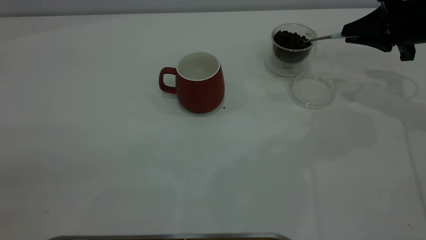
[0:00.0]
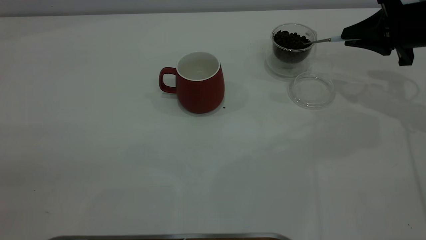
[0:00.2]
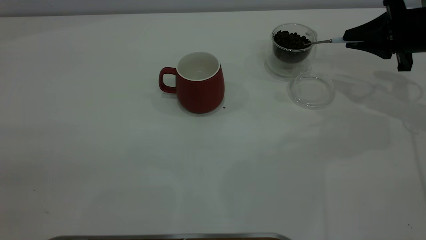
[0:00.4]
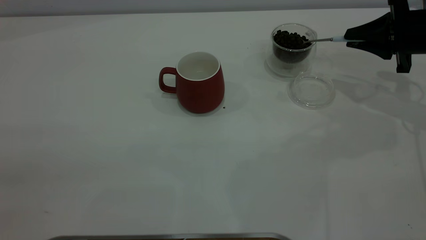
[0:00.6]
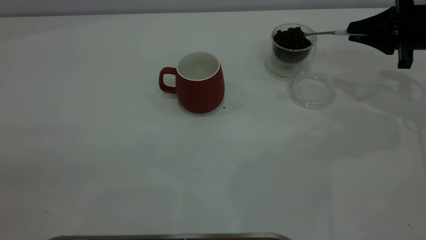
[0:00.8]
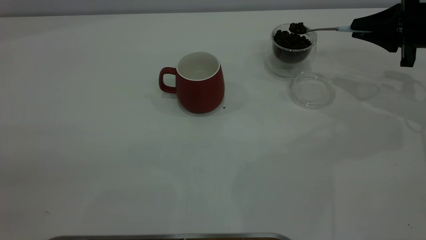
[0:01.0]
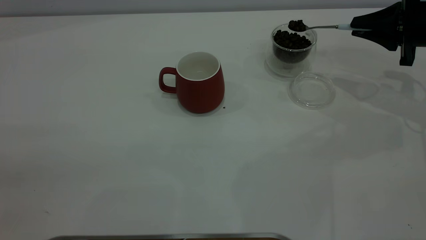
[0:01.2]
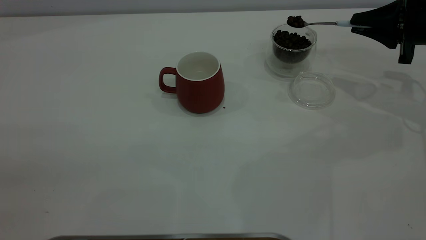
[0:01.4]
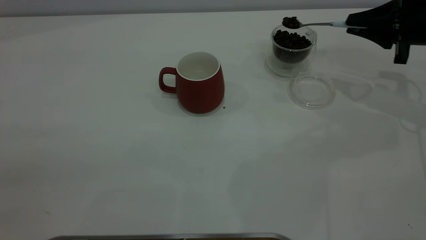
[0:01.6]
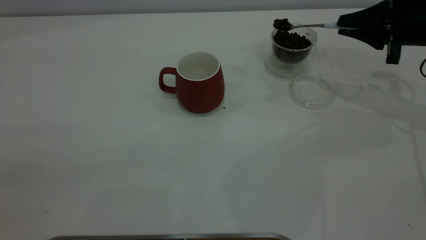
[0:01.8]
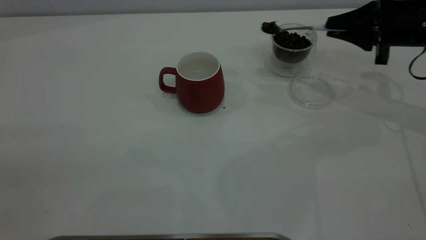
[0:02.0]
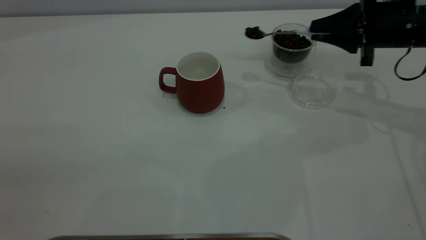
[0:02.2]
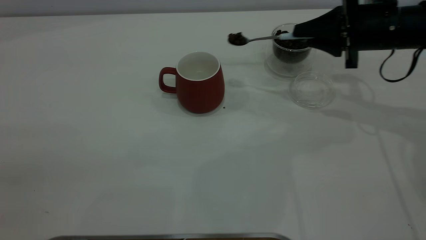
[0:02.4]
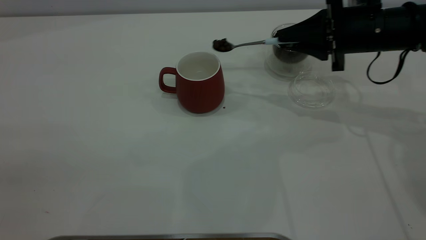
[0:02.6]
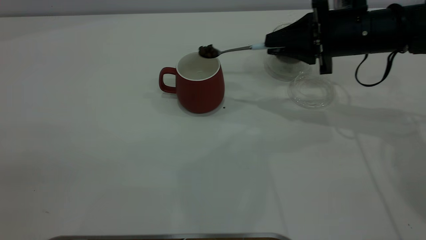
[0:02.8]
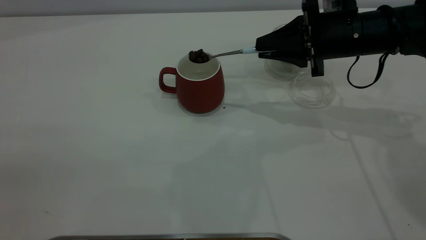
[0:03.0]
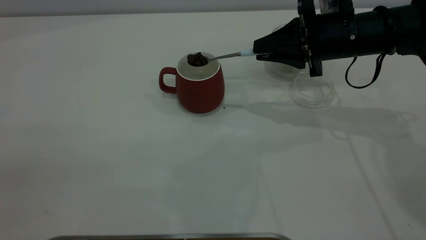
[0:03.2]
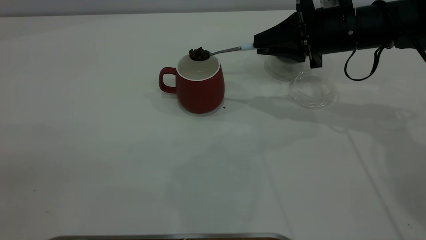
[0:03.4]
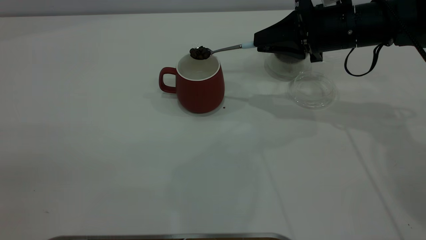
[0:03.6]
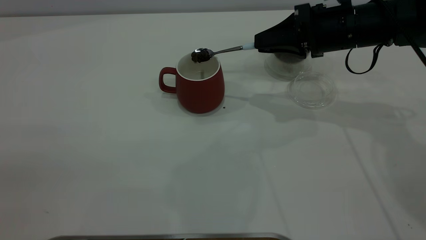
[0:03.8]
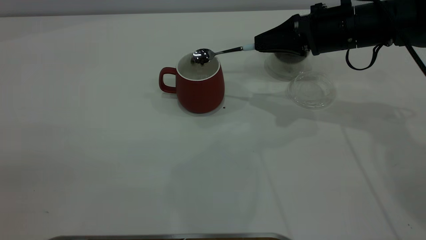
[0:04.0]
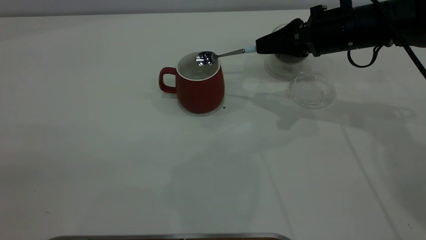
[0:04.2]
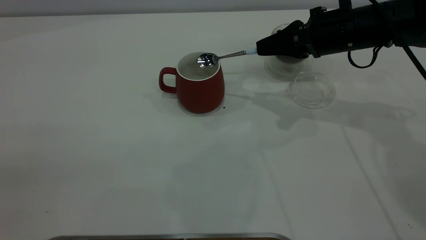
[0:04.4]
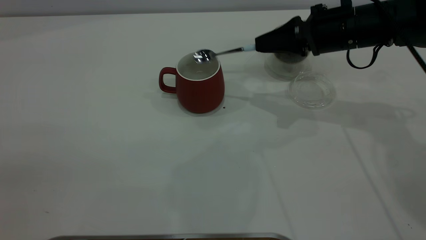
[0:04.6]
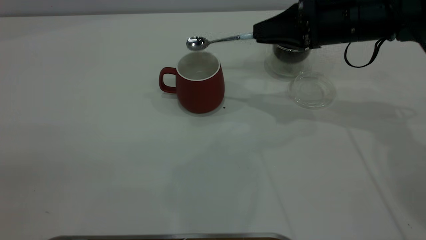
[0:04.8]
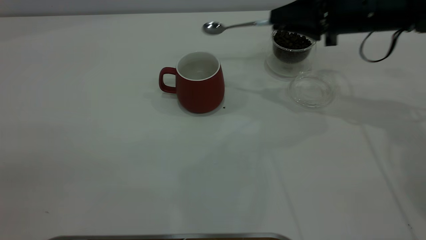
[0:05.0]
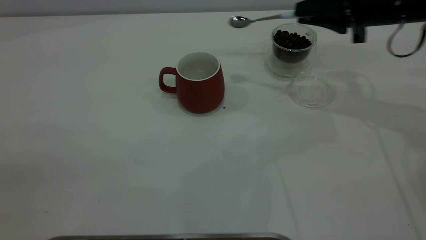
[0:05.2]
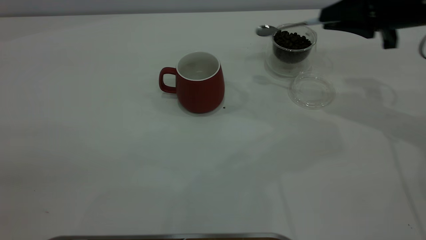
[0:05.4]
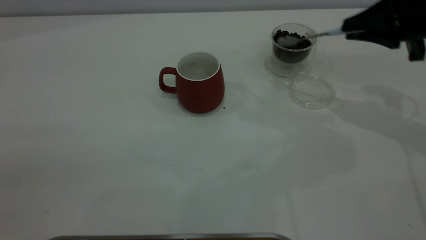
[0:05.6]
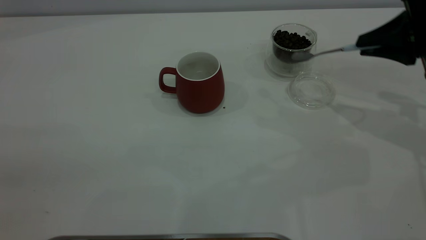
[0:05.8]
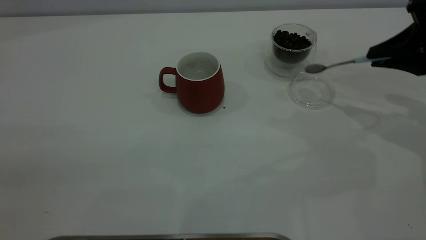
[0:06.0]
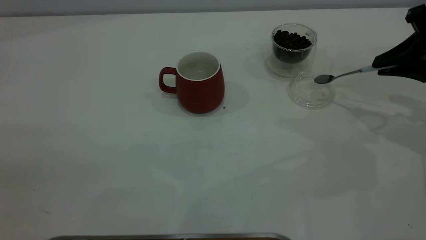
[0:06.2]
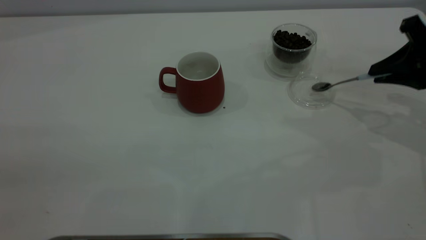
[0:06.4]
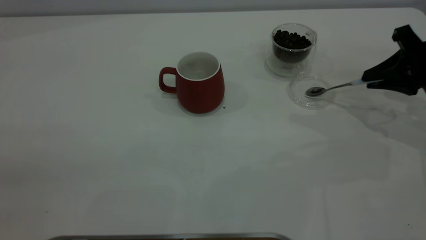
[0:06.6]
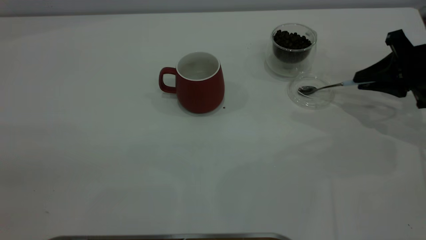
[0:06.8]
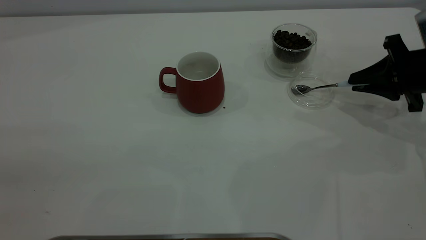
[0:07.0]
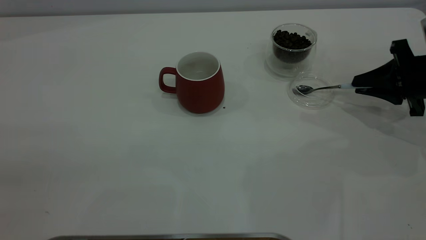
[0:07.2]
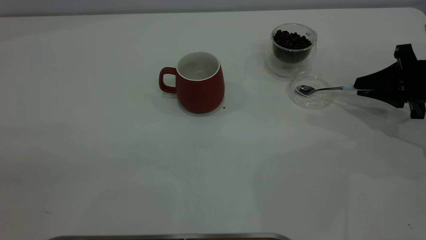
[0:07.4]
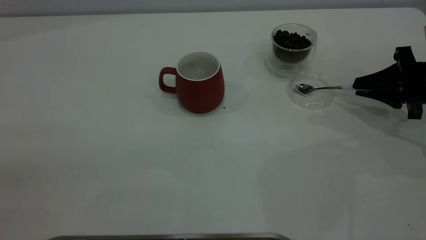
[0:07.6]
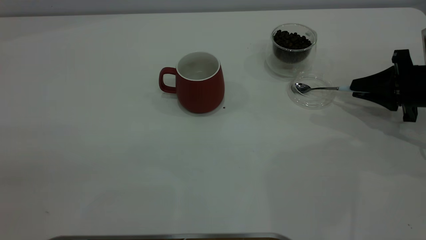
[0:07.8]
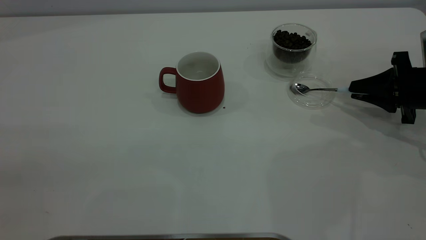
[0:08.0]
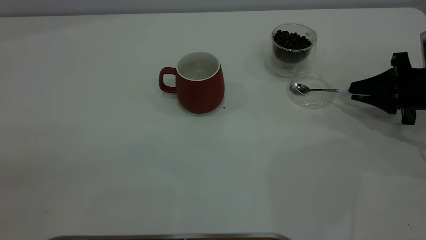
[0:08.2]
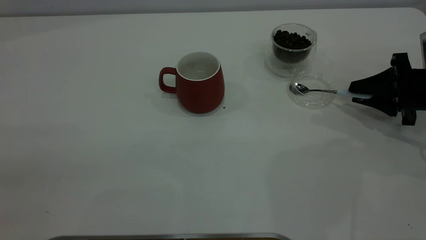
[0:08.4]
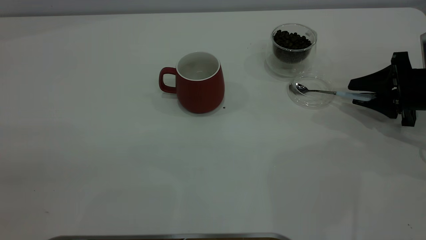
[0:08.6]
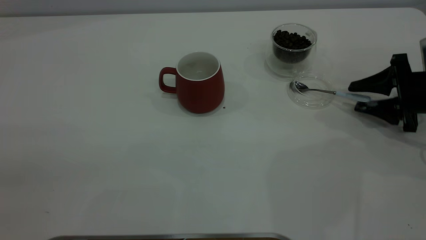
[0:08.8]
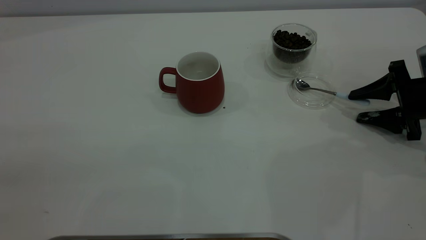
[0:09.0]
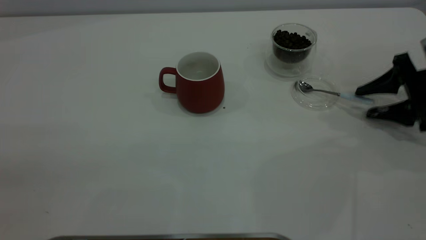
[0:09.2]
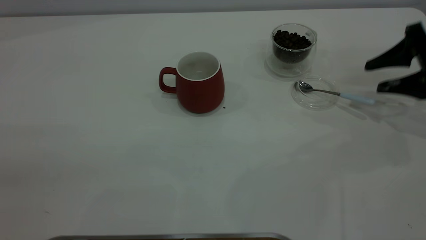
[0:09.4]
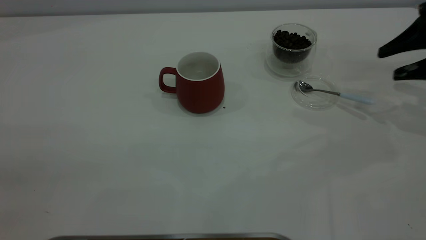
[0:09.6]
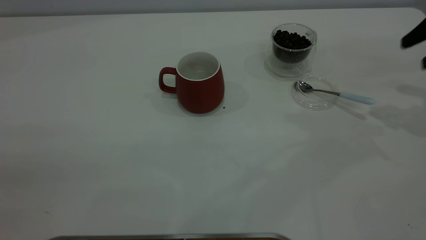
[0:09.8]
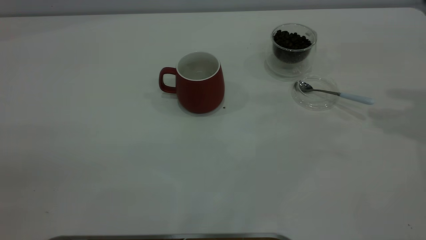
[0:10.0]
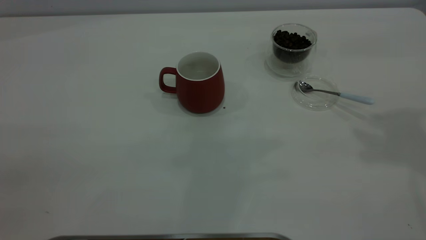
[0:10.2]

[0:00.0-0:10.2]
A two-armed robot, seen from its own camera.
Task of the whole recording: the left gripper place the red cup in the center of the table, the right gripper take the blue spoon from the cup lid and scoop out the coffee beans from the coffee cup and put them into the red cup, the right gripper put the spoon back into the cup lid.
Step, 0.0 to 4.6 s: Scoop a spoonful of beans into the cup.
Step, 4.8 to 9.2 s: Place the spoon back in its original place.
0.0 to 1.4 s: There are only small adjustments of the grippers.
1.4 to 3.0 s: The right gripper is displaced to the left by roughly 15 cm.
4.4 to 5.8 s: The right gripper travels to the right and backward by roughly 15 cm.
5.8 to 7.2 s: The right gripper goes approximately 10 cm downward.
7.2 to 8.8 s: The right gripper opens its fingers.
8.8 to 10.2 s: The right gripper heads upward, covering about 35 cm.

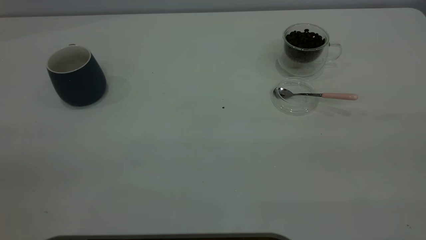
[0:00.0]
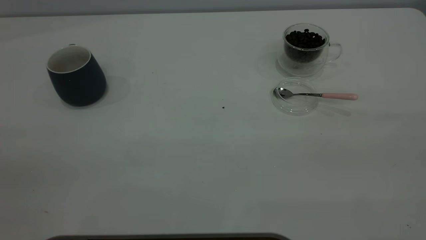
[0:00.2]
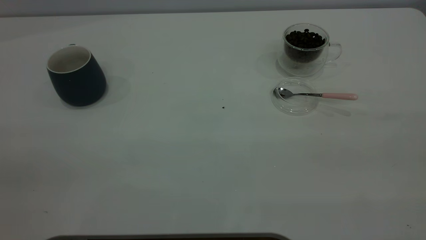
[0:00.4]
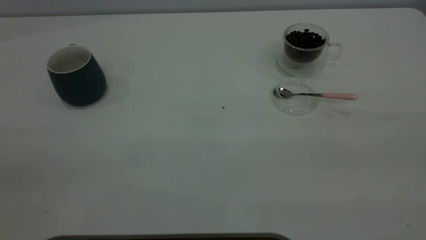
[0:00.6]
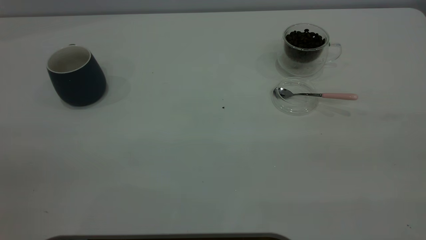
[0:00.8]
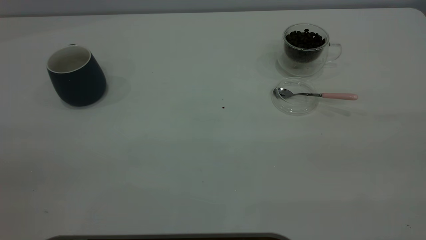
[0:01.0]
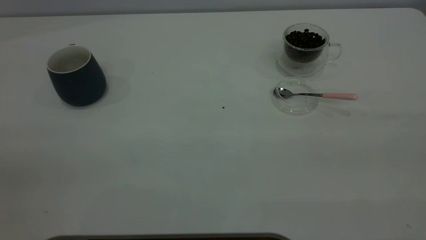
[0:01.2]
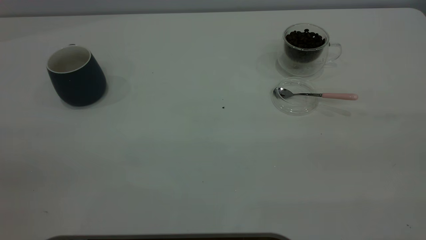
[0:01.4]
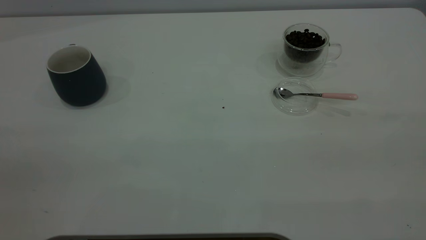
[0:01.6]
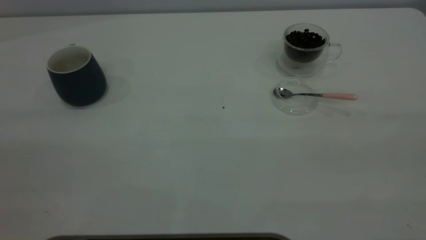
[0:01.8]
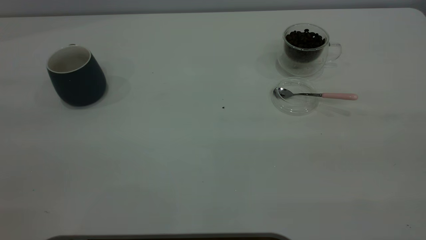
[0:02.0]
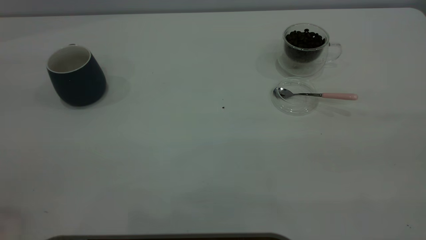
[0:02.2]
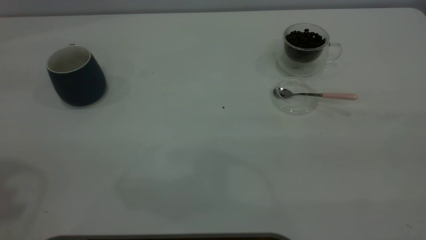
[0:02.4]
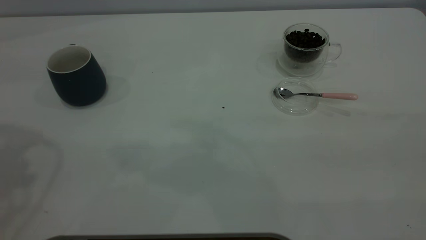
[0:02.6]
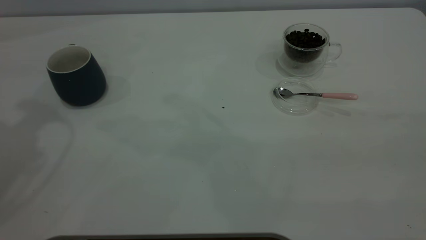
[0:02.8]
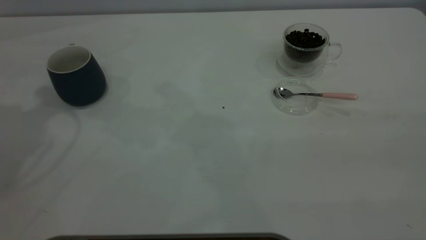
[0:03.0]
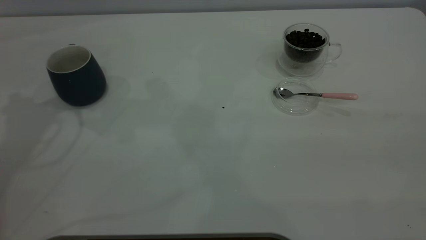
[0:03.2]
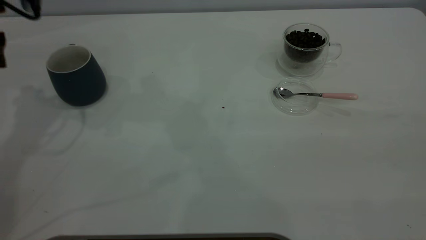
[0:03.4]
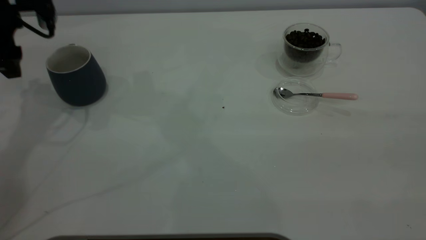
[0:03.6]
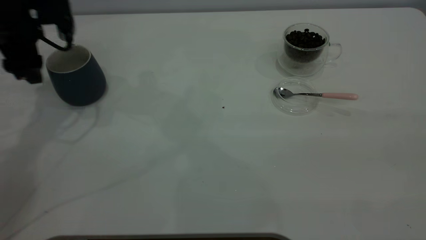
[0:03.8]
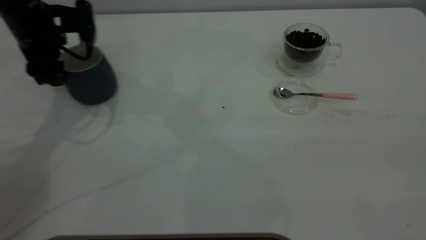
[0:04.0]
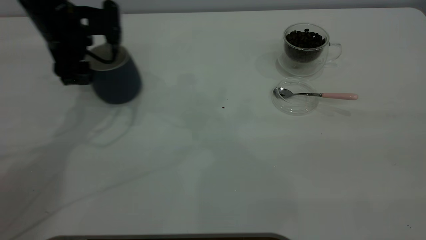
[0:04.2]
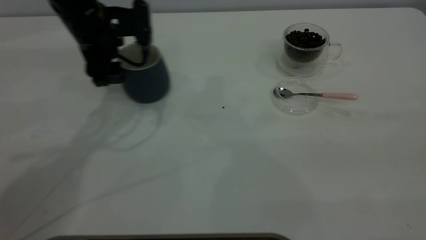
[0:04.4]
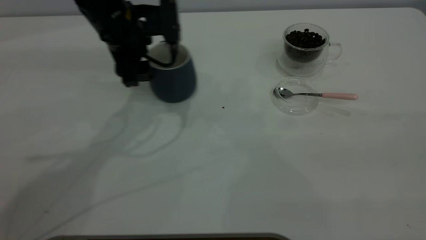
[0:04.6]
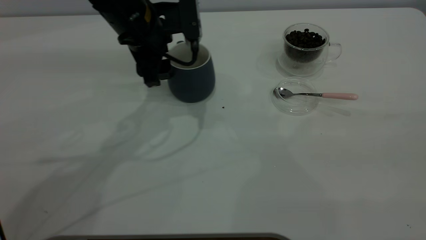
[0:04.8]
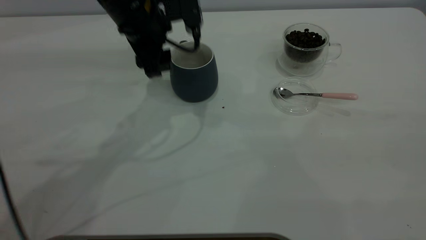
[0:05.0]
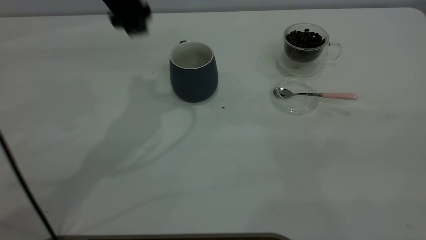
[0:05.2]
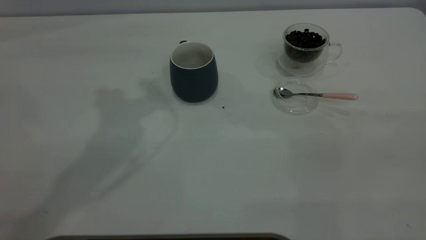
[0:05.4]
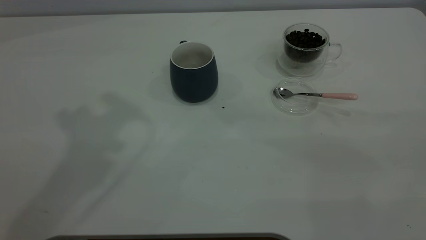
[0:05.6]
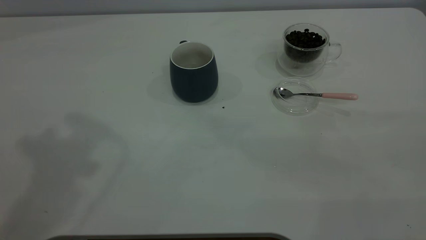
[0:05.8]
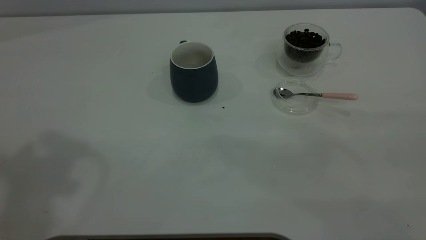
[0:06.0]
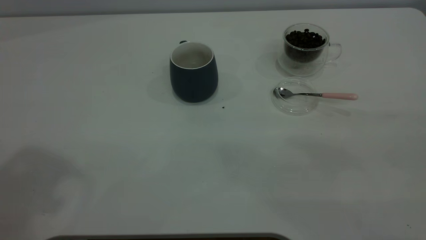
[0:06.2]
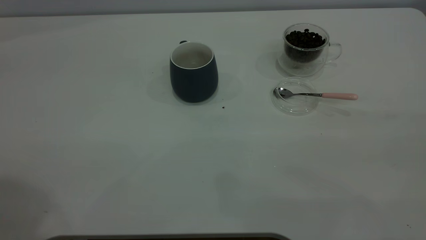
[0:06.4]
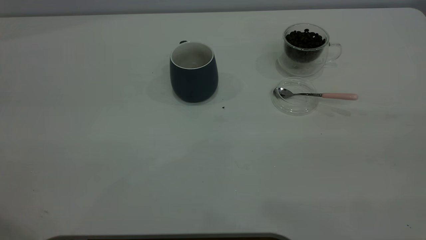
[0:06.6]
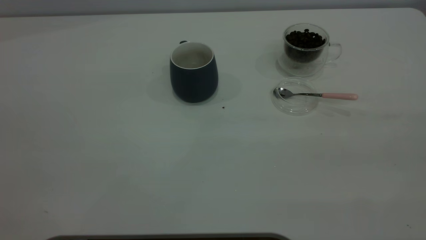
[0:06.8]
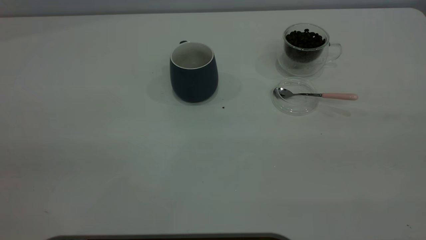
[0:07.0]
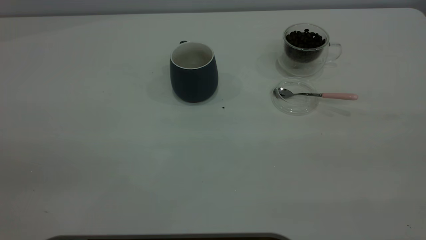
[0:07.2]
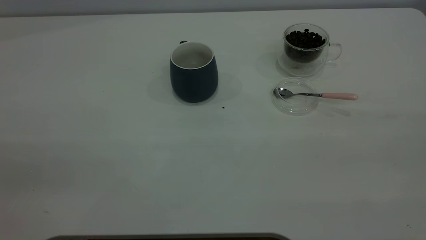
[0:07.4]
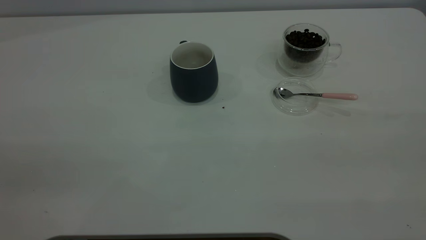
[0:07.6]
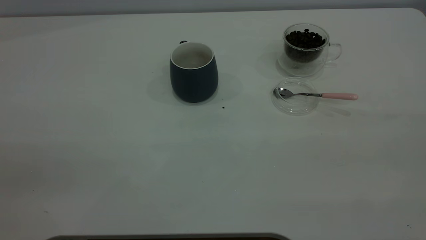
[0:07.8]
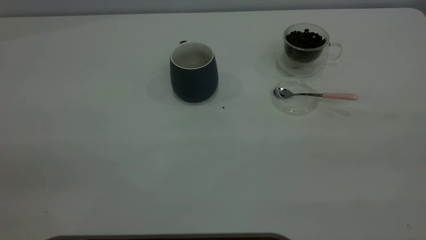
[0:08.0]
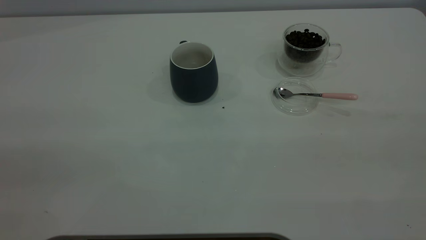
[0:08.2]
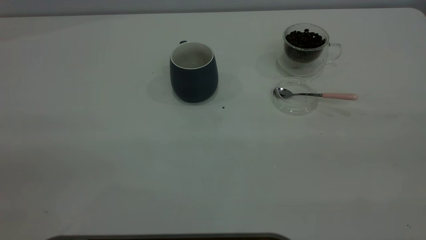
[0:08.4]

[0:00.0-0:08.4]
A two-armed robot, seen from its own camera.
Task of the whole recording: the left gripper place the grey cup in the center of the table, the right gripper take the pink spoon from the cup lid and scoop out the coffee beans from the coffee cup and put them into the grey cup, the right gripper put the spoon back into the cup lid.
Step, 0.0 to 5.0 s: Move the cup to the center of view.
0.0 to 1.4 s: The two grippers keep their place.
2.8 to 4.2 s: The left gripper goes roughly 25 cm downward, to the right and forward.
4.2 to 5.6 s: The left gripper is displaced upward and backward by roughly 30 cm.
